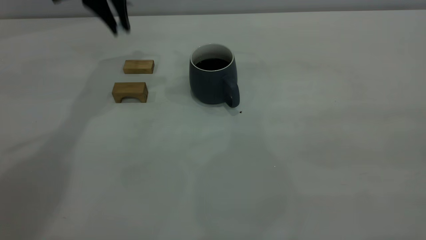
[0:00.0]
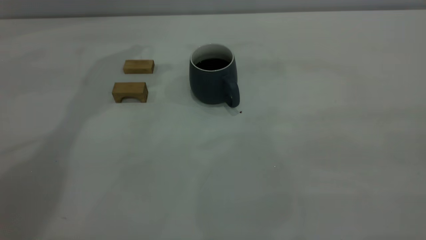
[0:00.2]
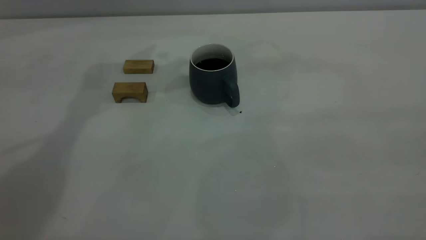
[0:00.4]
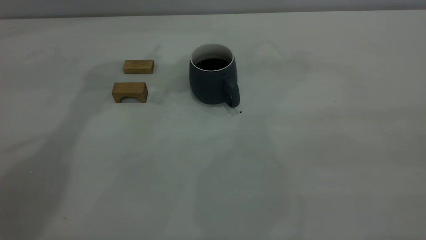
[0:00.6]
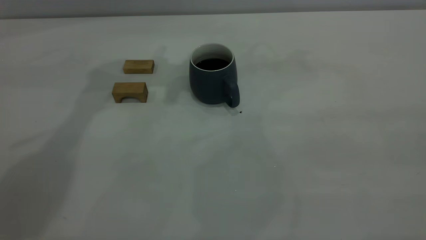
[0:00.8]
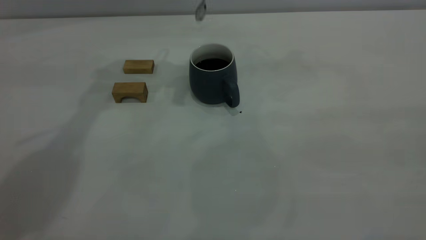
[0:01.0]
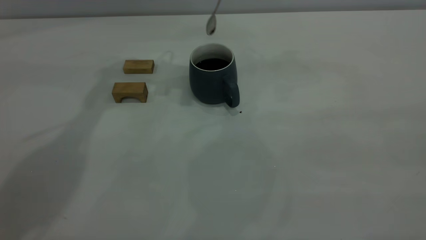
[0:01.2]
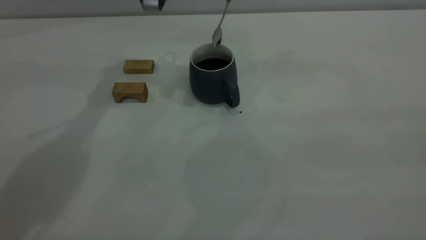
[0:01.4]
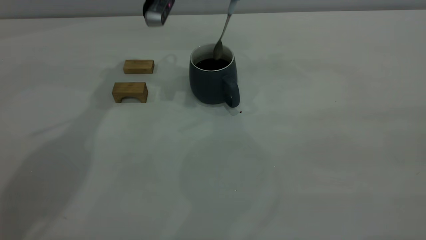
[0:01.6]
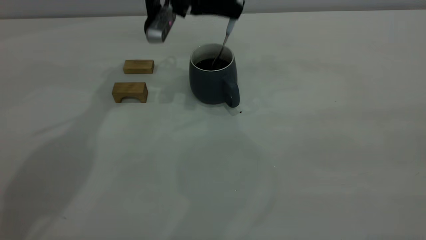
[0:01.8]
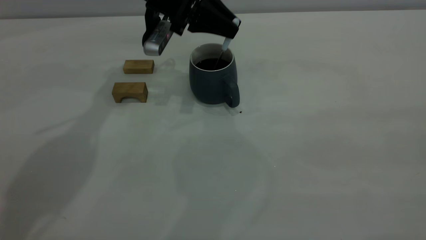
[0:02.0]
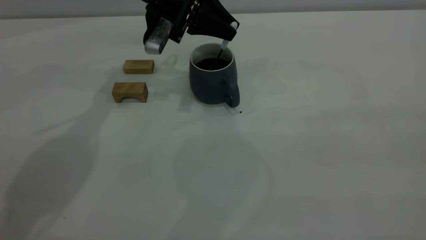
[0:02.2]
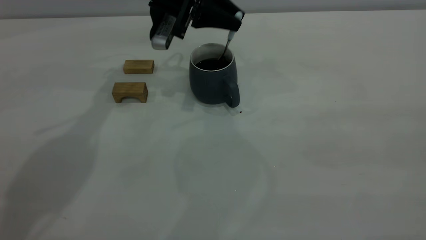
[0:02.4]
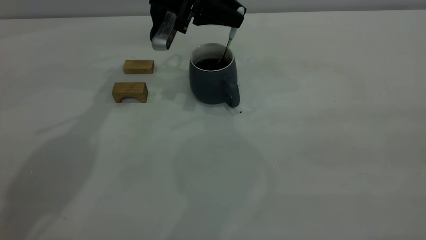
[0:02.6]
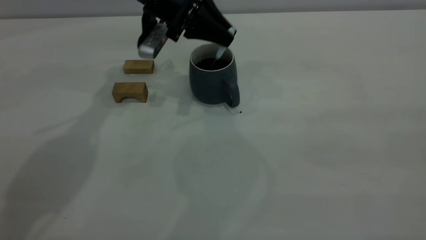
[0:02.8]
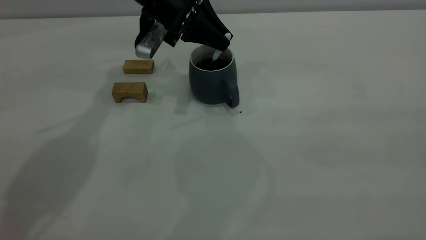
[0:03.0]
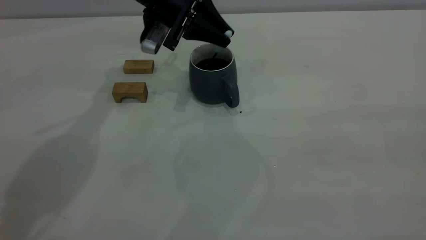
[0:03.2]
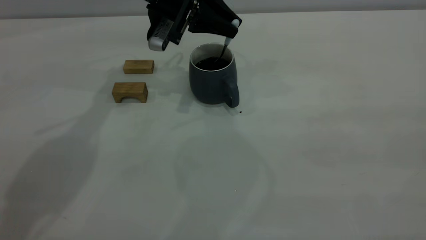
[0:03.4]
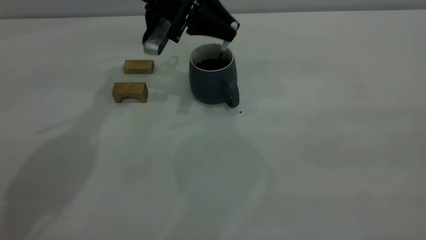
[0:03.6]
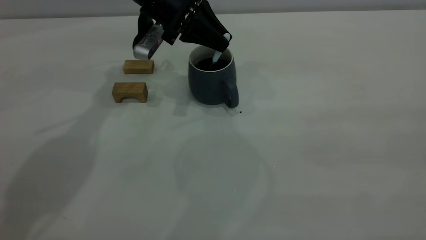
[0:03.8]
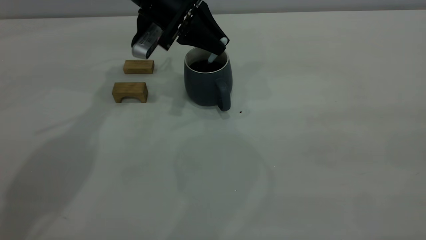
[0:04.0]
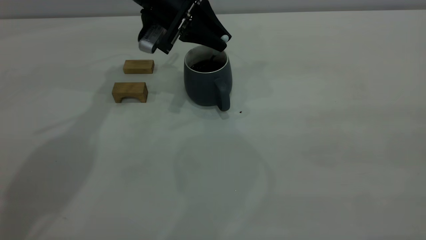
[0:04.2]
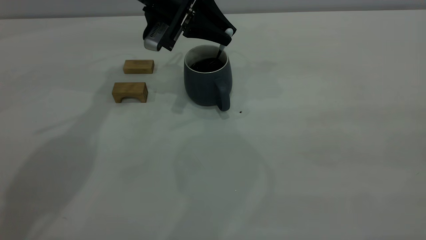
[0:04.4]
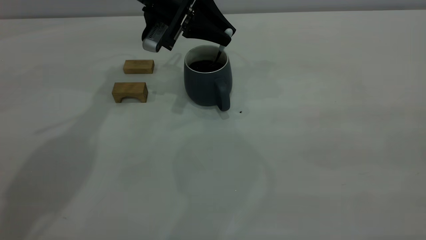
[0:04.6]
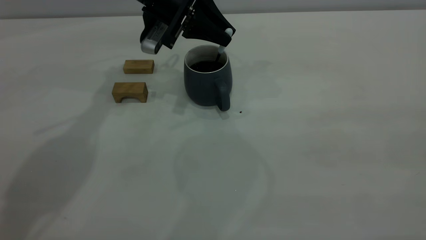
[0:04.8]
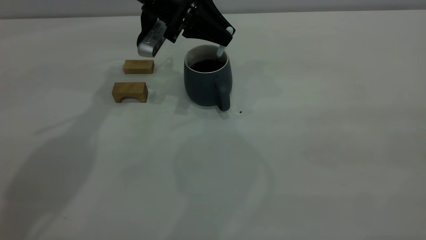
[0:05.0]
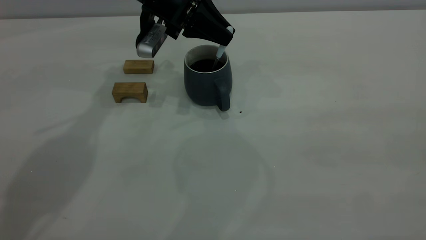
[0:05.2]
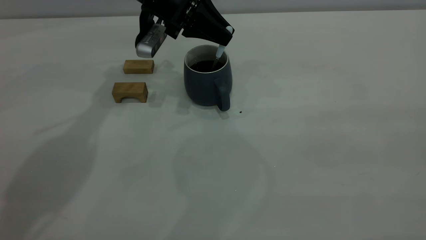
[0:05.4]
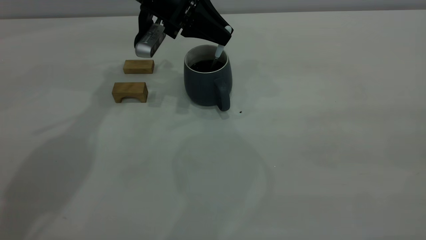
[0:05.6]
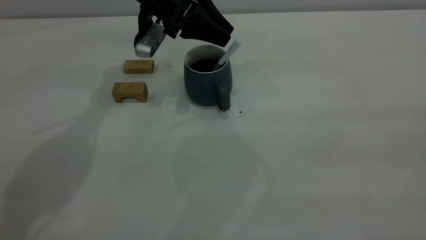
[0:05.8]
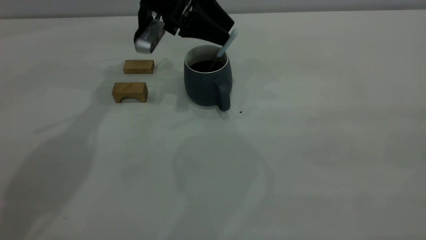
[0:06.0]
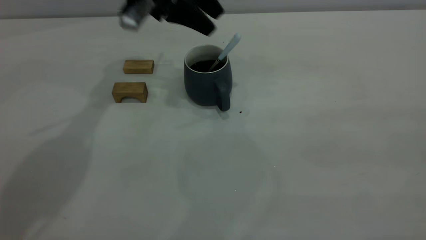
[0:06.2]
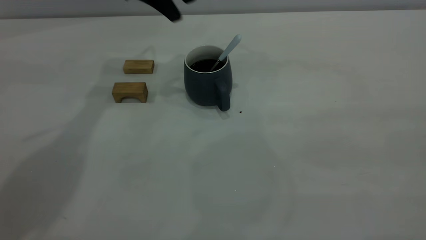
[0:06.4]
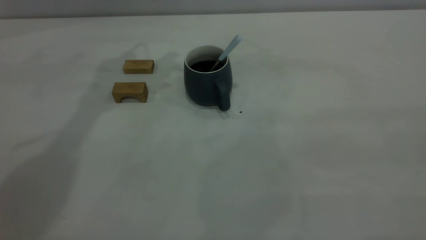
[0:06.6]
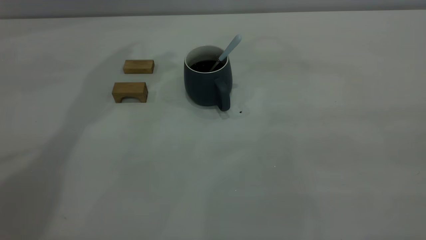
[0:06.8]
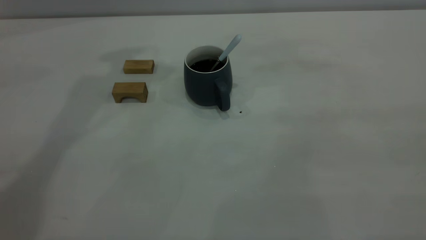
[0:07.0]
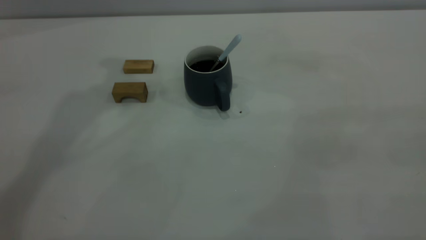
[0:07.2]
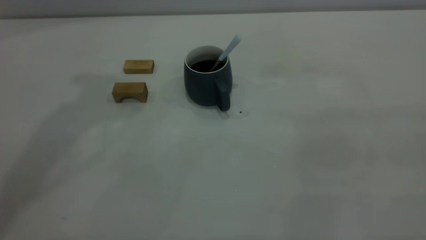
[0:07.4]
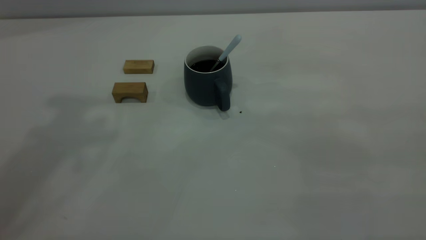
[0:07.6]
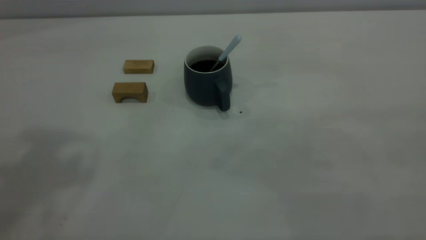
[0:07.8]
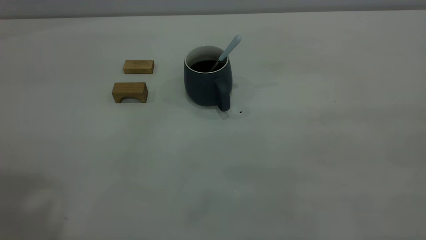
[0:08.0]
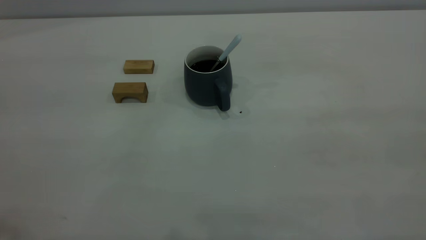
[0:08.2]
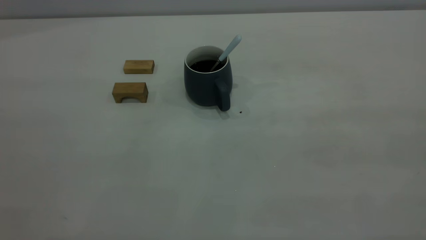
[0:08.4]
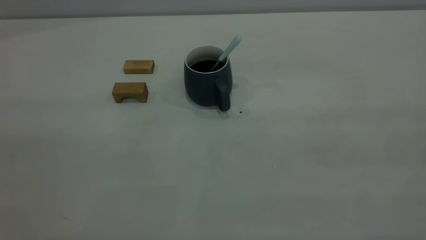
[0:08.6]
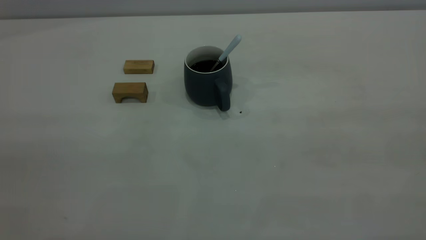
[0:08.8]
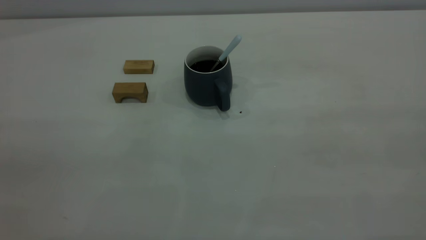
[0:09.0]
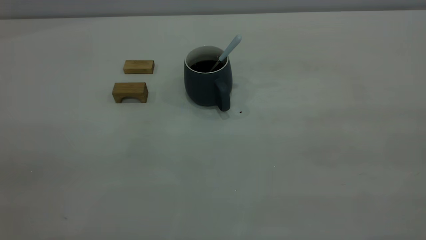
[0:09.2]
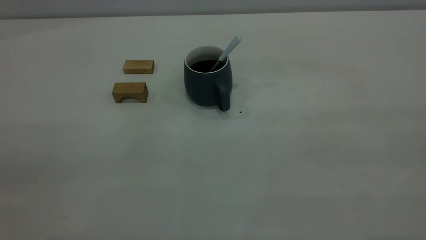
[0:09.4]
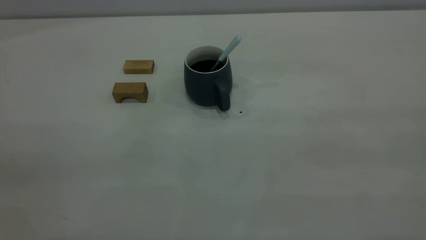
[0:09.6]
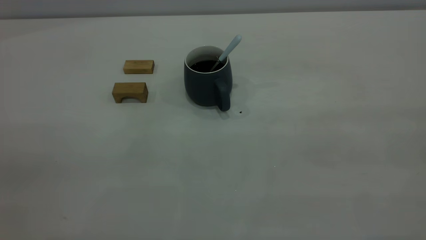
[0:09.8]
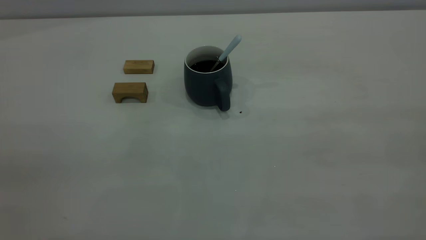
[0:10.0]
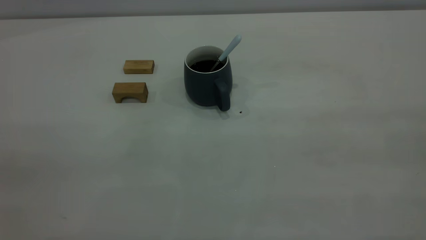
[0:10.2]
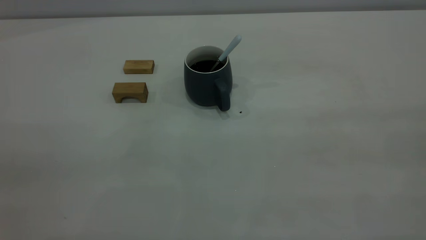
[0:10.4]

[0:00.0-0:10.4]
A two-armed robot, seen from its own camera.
Step, 0:00.0 to 0:06.2: Stir the coffee in the cup.
0:00.0 to 0:01.4: The left gripper heads to the right, covering about 10 cm.
0:01.4 to 0:03.0: The left gripper moves downward, approximately 5 cm.
0:03.0 to 0:04.4: The grippers move only a little.
0:04.4 to 0:06.0: The left gripper opens.
0:06.0 to 0:07.4: The left gripper heads upward and backward, covering approximately 35 cm.
0:09.0 to 0:10.4: Both grippers stay about where they are.

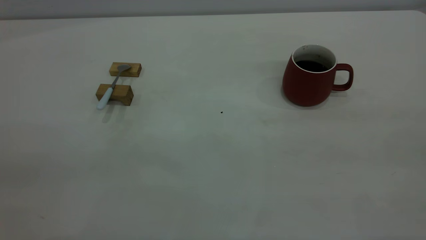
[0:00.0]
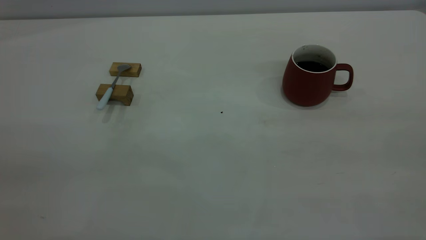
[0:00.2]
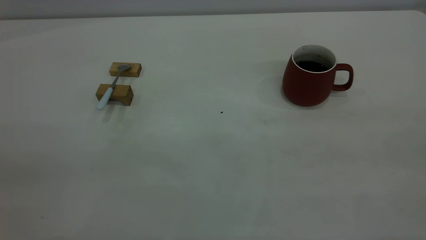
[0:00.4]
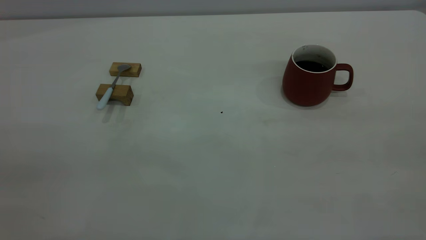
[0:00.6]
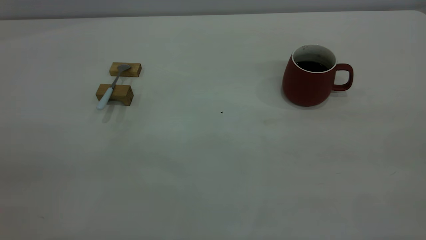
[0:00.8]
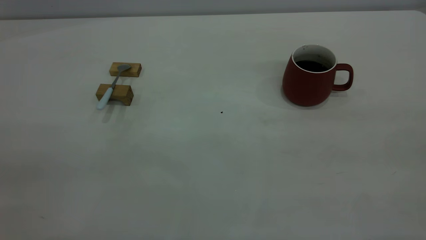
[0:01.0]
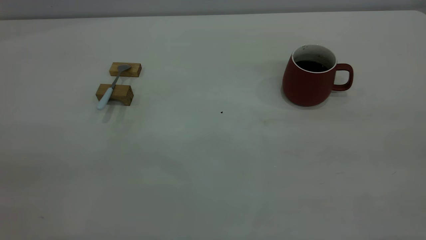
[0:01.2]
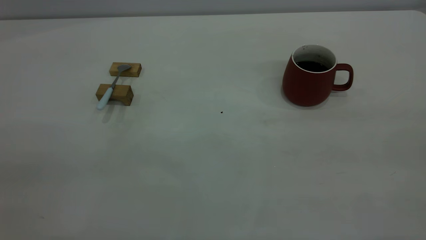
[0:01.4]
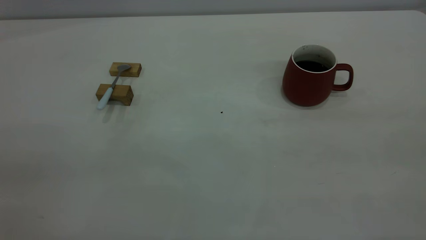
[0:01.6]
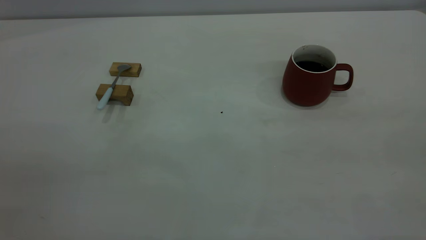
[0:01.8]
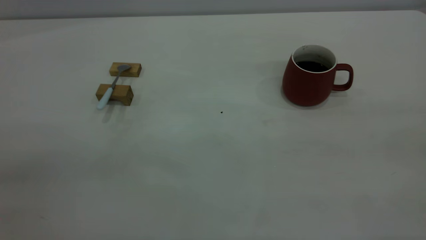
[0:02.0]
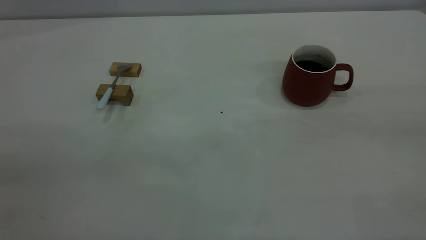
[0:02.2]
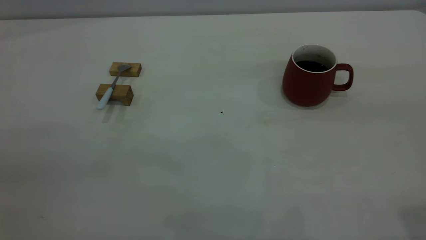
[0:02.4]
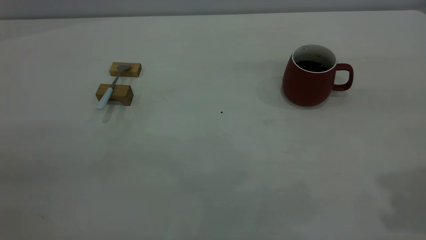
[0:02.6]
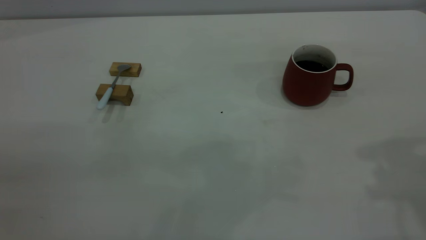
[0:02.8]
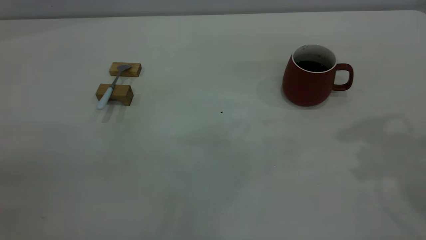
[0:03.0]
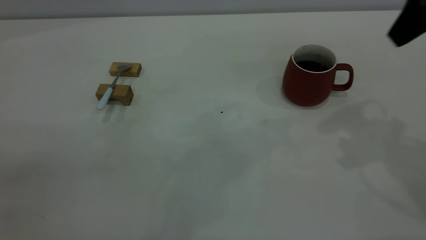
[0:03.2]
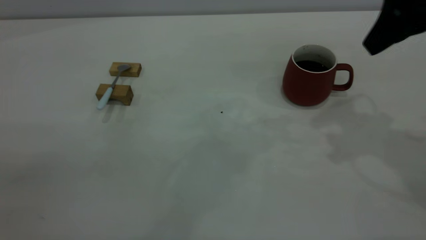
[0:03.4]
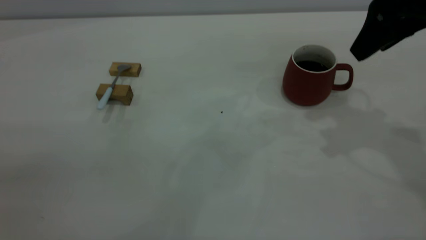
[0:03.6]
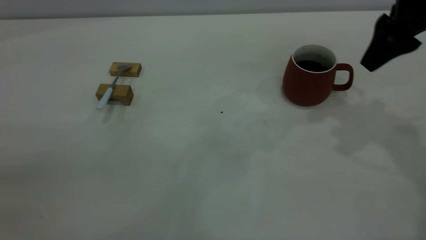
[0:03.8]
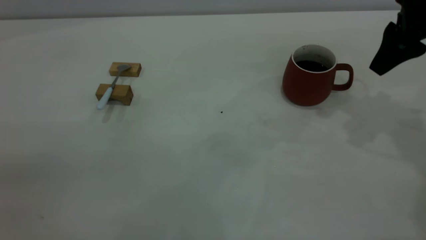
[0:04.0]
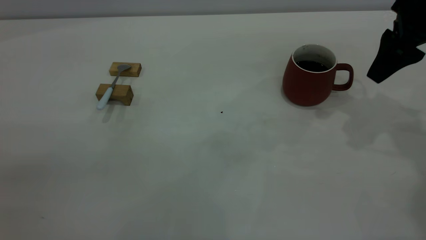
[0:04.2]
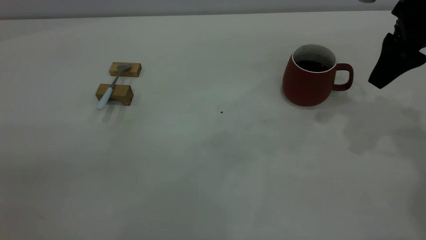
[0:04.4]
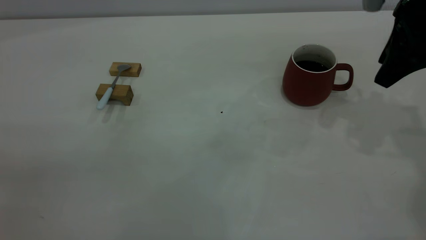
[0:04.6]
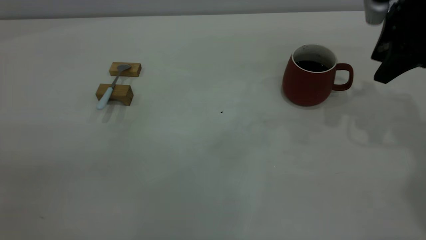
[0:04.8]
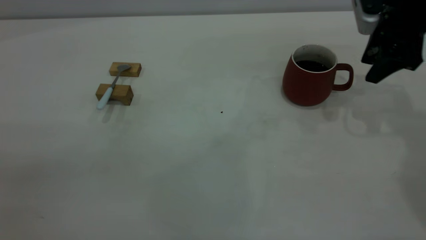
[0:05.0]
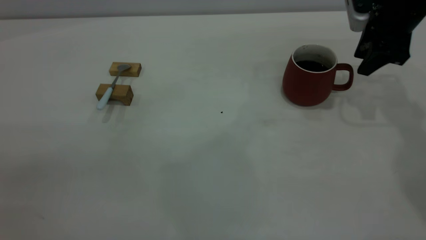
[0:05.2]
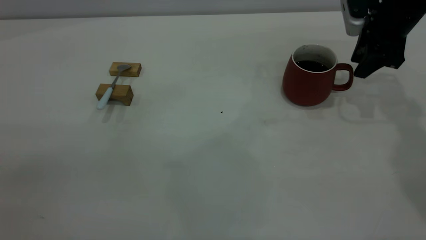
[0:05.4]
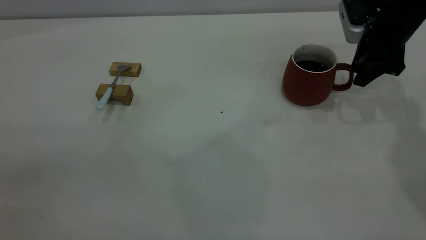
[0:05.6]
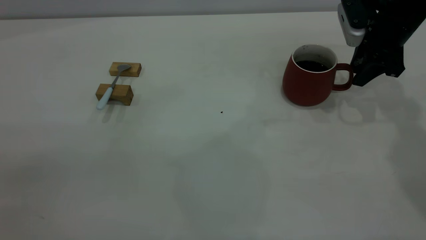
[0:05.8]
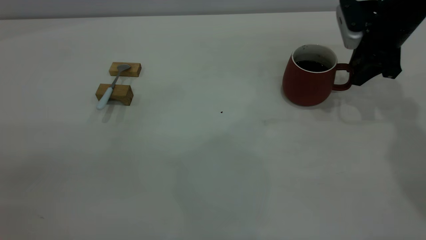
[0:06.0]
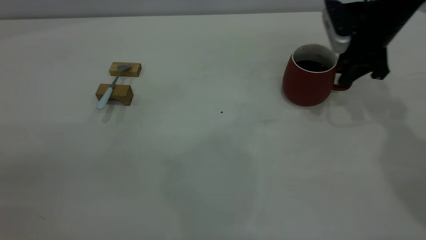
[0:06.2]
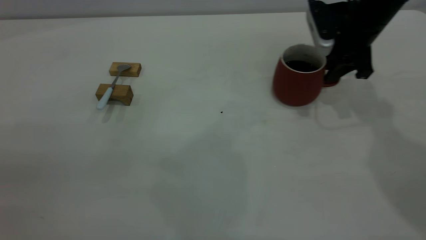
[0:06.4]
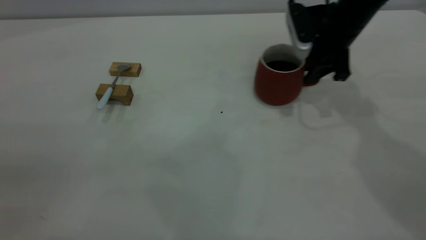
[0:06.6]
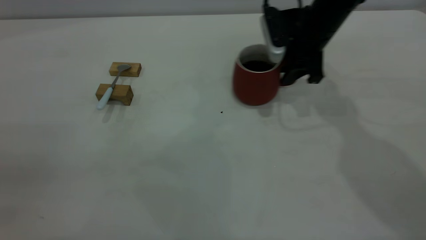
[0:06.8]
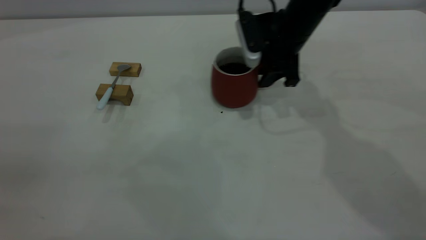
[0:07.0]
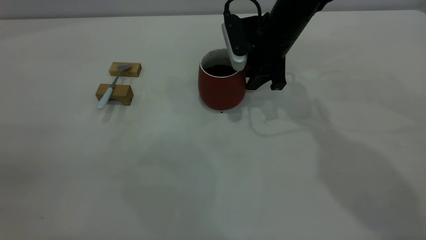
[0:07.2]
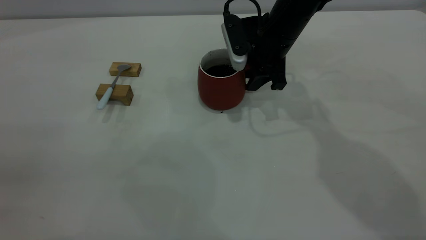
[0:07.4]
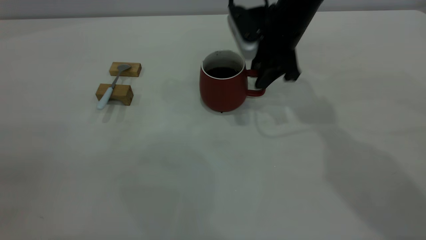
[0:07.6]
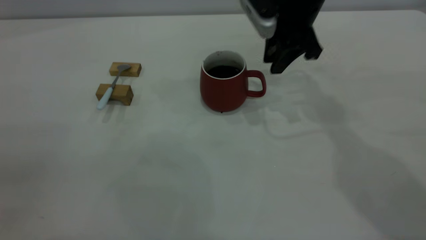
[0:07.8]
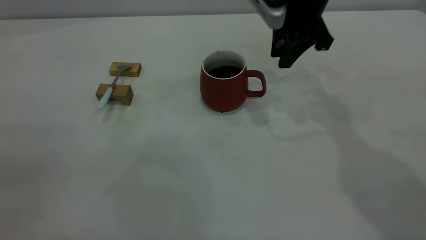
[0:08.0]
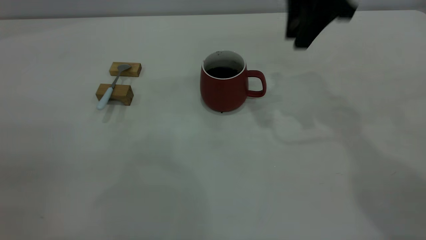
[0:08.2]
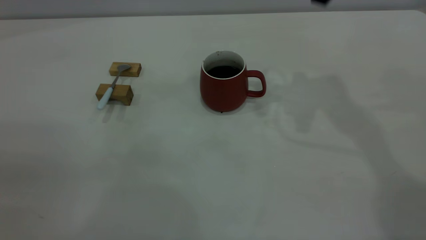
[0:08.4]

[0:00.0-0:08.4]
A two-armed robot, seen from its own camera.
Step, 0:00.0 to 0:07.8: Move the cup with coffee to the center of view.
0:00.0 to 0:01.4: Both grippers stay put.
0:02.8 to 0:04.2: The right gripper goes about 20 cm forward and downward.
0:04.2 to 0:05.6: The right gripper shifts roughly 10 cm forward and downward, and closes its fingers.
0:05.6 to 0:07.0: The right gripper shifts about 15 cm to the left.
0:07.0 to 0:08.4: The right gripper travels upward by about 20 cm.
